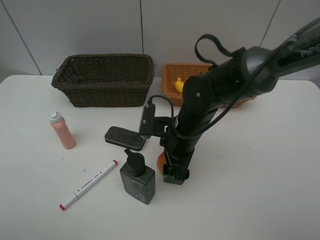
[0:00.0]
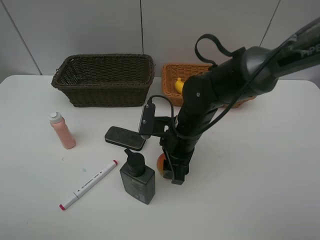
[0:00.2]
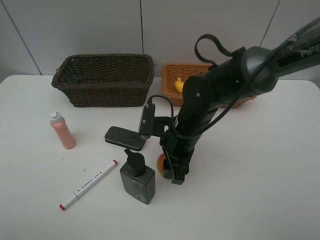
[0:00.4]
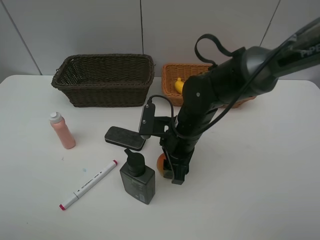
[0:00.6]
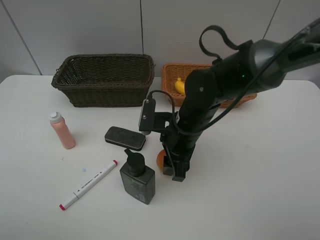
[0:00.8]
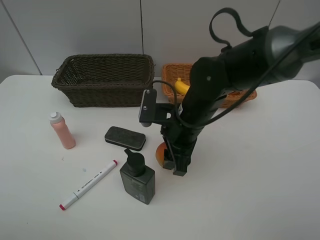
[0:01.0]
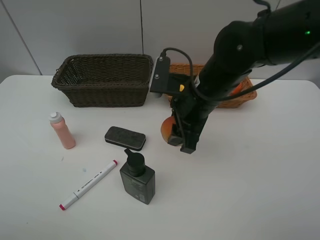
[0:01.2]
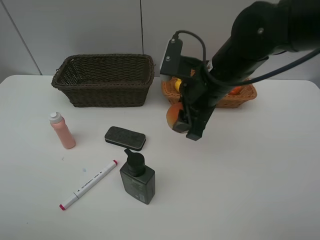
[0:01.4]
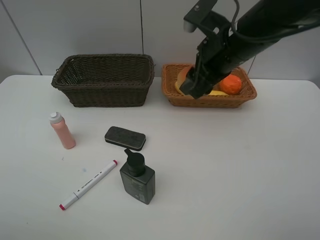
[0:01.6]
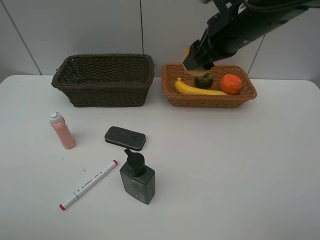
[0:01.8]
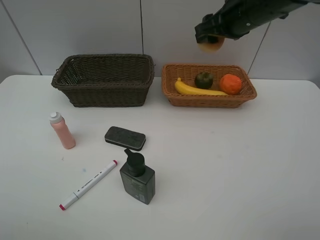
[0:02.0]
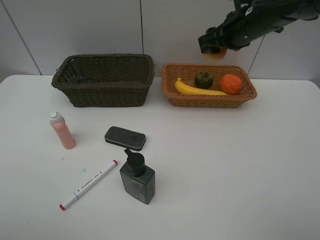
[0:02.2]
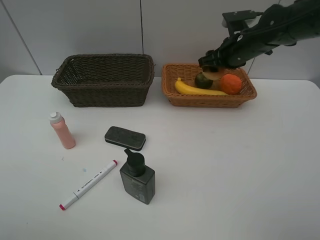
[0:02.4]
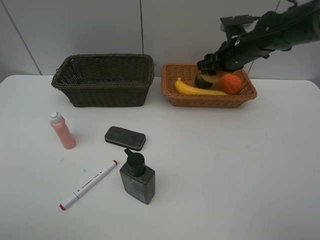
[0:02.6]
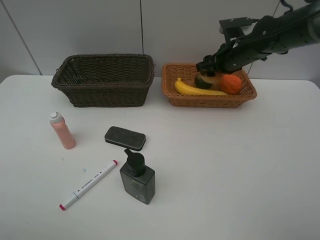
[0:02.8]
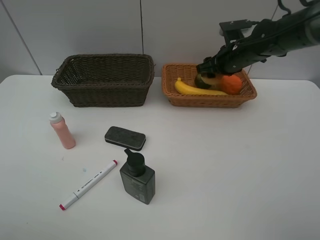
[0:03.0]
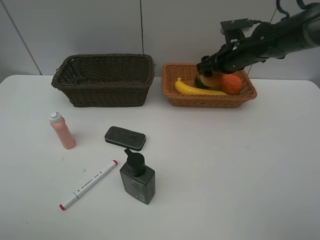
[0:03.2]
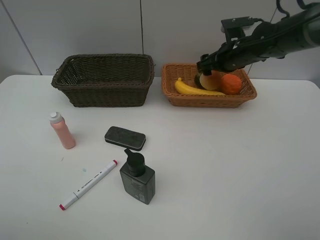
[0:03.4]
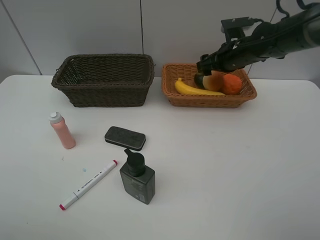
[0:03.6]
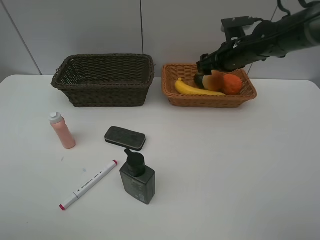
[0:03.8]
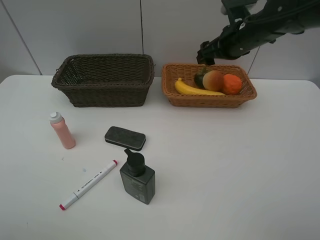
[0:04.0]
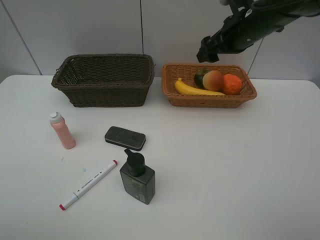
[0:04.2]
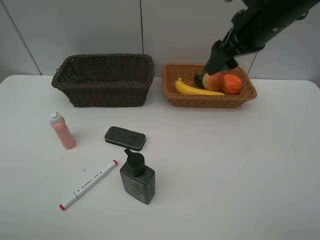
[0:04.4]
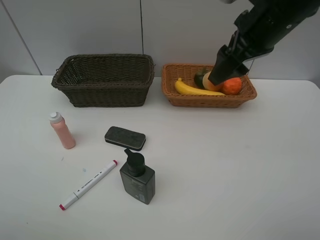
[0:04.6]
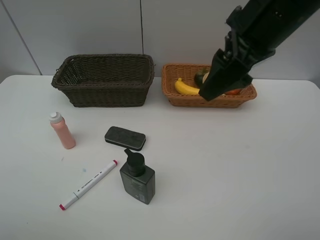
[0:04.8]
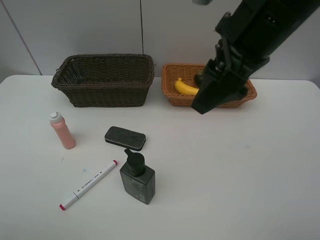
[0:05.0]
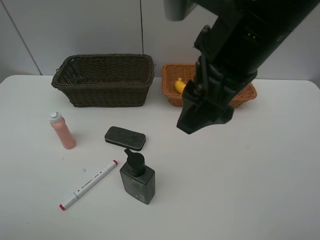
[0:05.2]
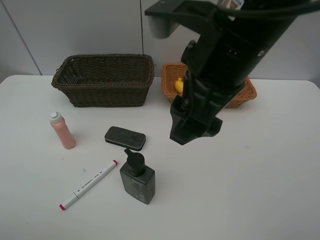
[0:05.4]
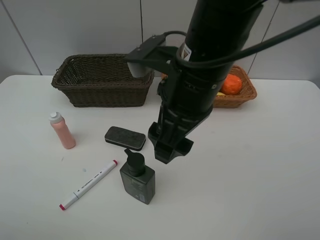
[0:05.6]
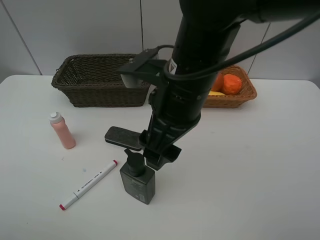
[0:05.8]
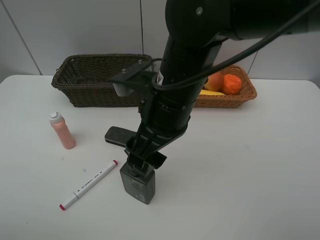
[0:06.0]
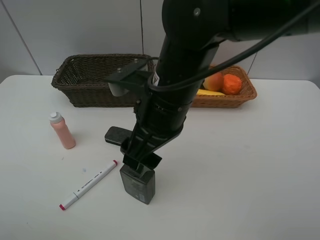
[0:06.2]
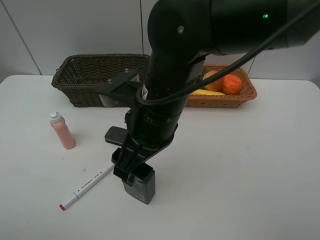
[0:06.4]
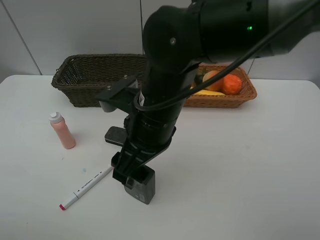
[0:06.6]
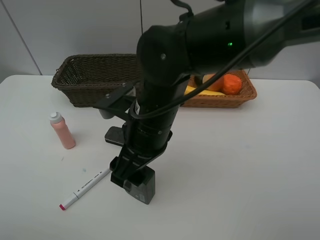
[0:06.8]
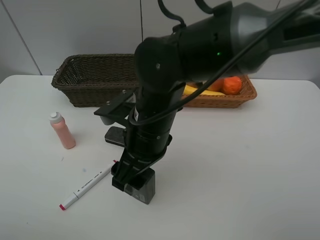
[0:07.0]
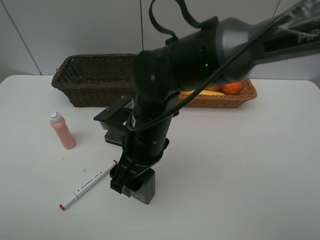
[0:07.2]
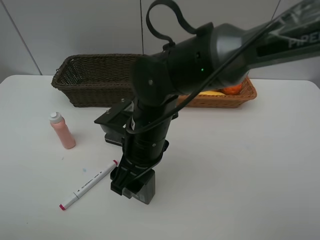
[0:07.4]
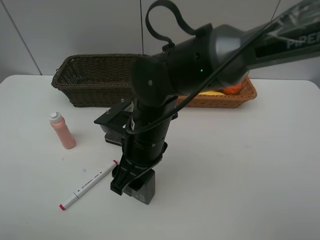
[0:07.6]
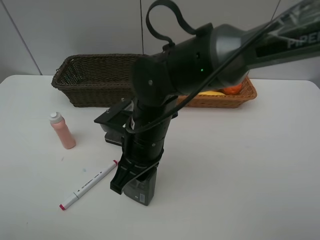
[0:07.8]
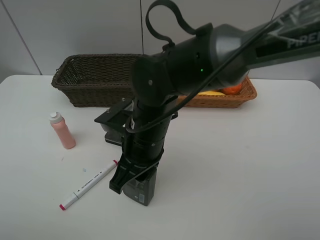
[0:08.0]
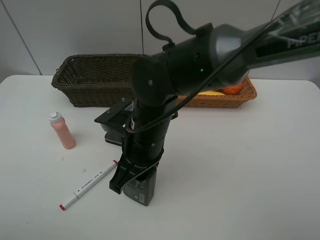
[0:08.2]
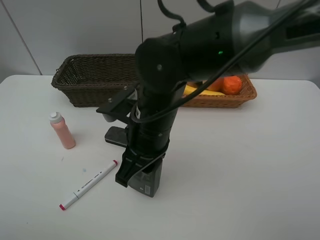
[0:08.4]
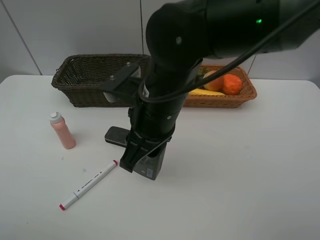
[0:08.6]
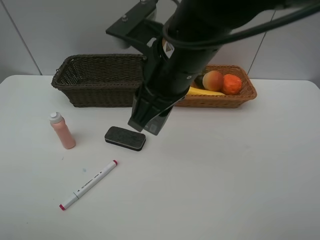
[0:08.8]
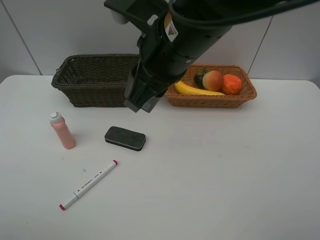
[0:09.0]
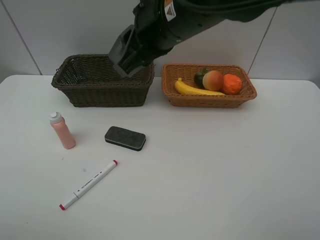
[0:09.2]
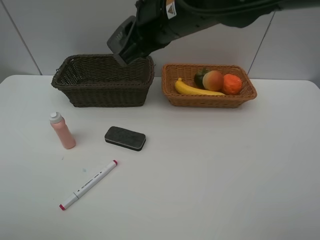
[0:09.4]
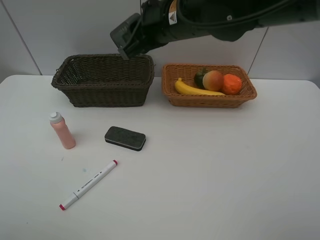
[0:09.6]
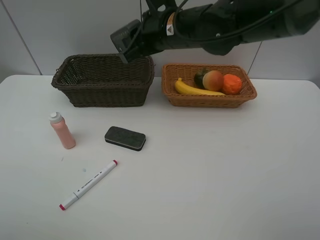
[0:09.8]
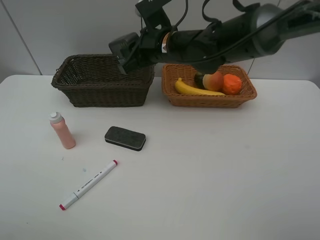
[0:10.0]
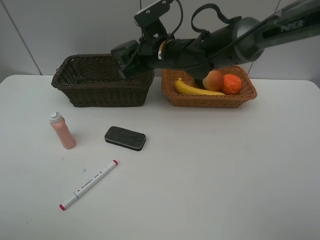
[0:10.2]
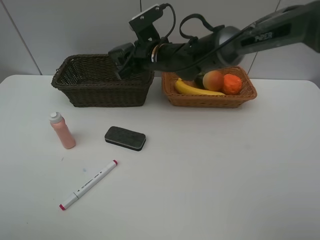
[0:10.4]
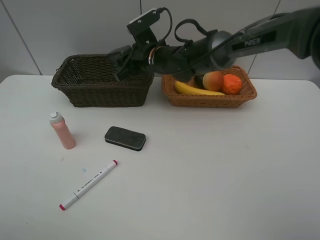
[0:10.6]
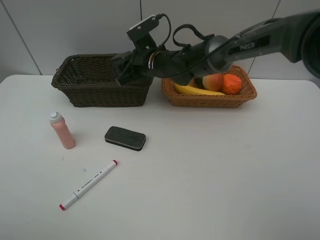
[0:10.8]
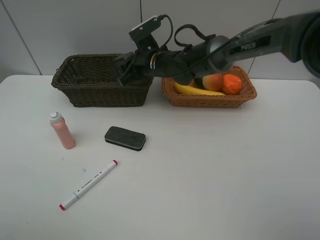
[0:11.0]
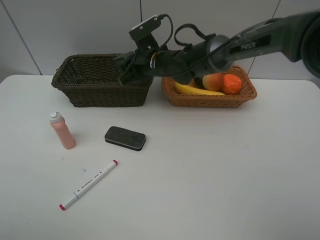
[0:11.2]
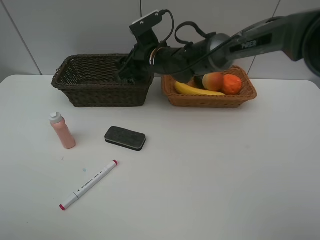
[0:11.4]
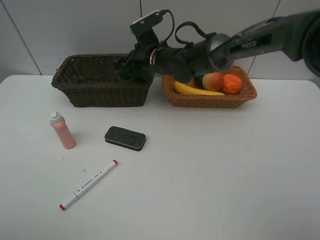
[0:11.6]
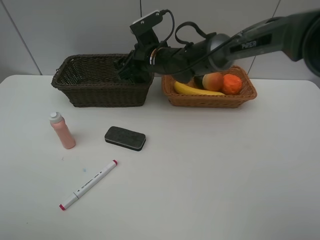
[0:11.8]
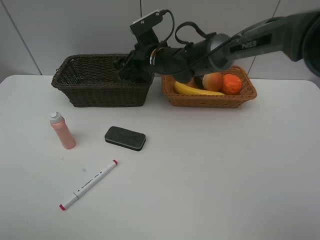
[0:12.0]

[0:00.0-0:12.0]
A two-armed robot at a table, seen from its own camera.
Task of the whole recording: Place multiple objects separately in different baskets.
Step, 0:01.0 to 0:04.0: Place the egg yolk pastry in the light basket with right gripper.
Step, 0:04.2 to 0:08.4: Pick up the hard facial cleanser with right gripper.
0:00.0 to 0:01.6: The right gripper moves upward and to the right, about 15 cm, and closes its fingers.
0:01.6 to 0:03.0: The right gripper moves forward, downward and to the right, approximately 15 cm.
0:03.0 to 0:04.4: The right gripper goes approximately 15 cm upward and backward, and opens up.
0:04.4 to 0:06.0: The right gripper shifts about 20 cm to the left, backward and downward.
0:06.0 to 0:07.6: The right gripper is displaced downward by approximately 10 cm, and closes up.
0:07.6 to 0:09.0: The right gripper heads upward, covering some 15 cm, and closes.
0:09.0 to 0:10.4: The right gripper moves forward and downward, some 20 cm.
0:10.4 to 0:12.0: The right gripper opens up.

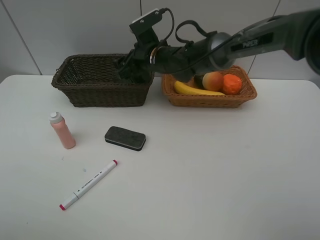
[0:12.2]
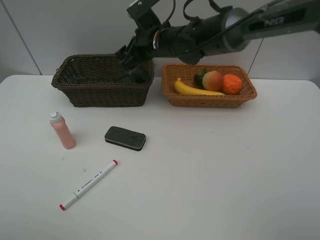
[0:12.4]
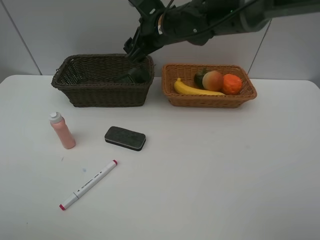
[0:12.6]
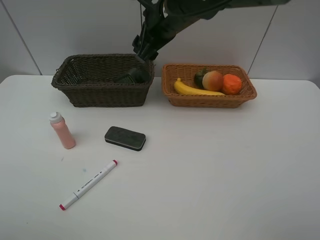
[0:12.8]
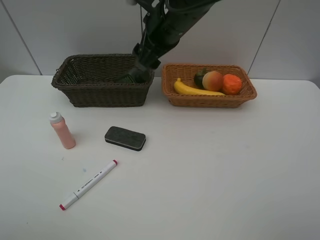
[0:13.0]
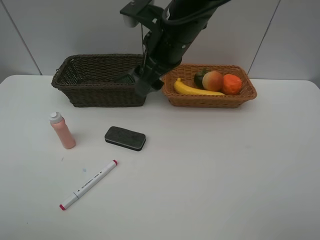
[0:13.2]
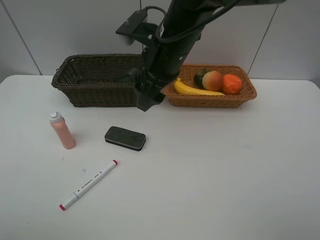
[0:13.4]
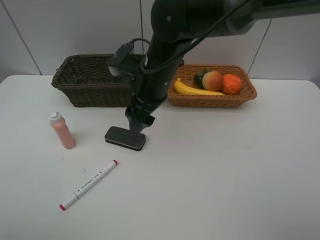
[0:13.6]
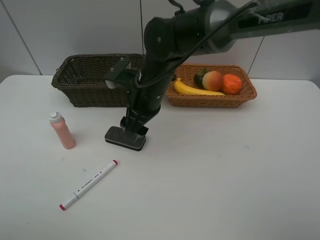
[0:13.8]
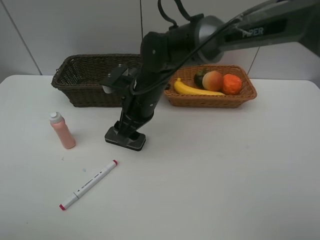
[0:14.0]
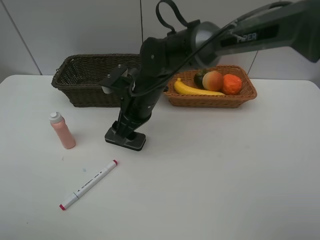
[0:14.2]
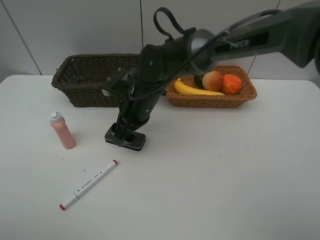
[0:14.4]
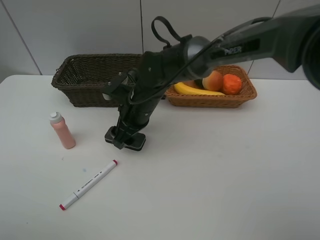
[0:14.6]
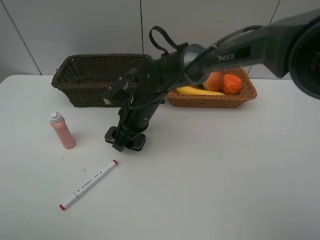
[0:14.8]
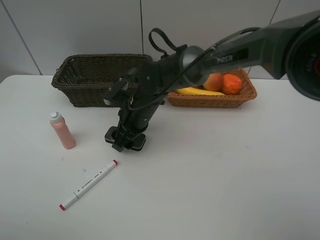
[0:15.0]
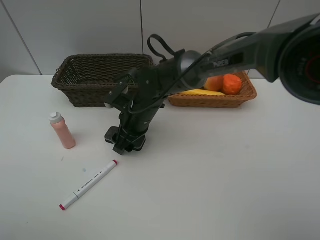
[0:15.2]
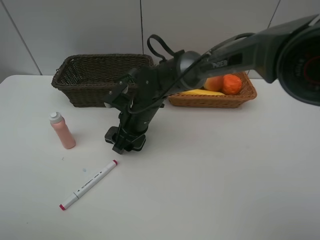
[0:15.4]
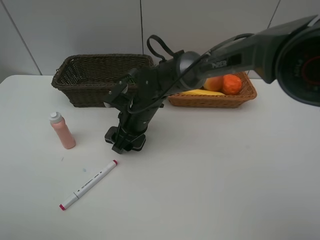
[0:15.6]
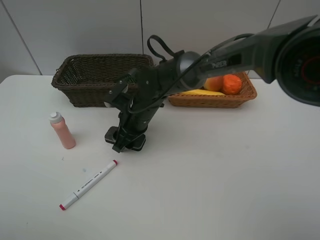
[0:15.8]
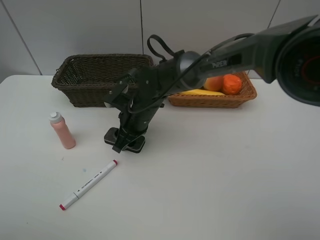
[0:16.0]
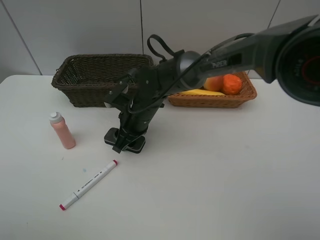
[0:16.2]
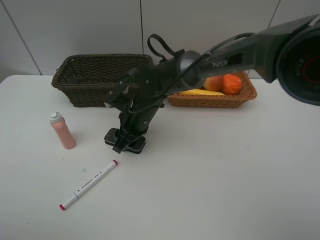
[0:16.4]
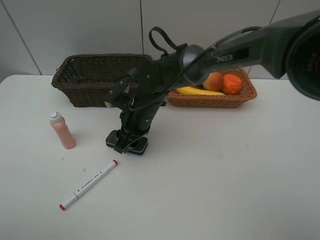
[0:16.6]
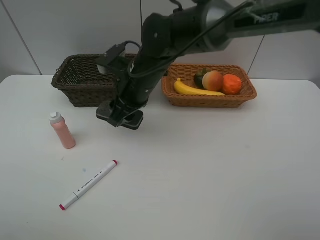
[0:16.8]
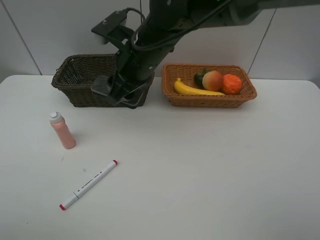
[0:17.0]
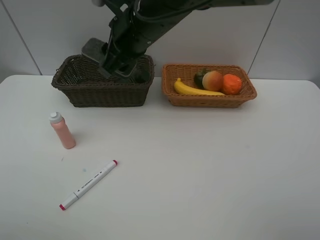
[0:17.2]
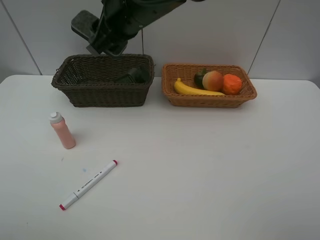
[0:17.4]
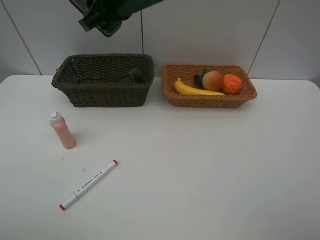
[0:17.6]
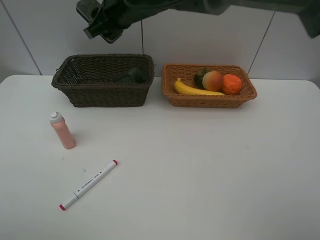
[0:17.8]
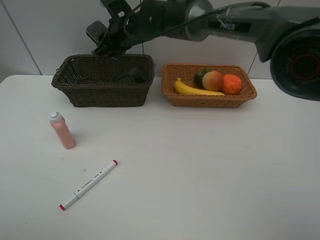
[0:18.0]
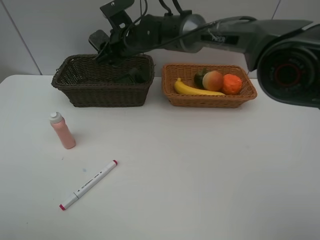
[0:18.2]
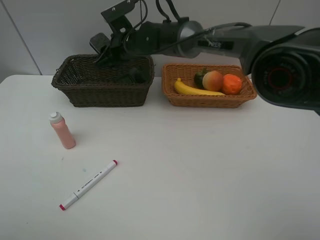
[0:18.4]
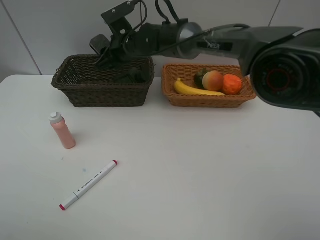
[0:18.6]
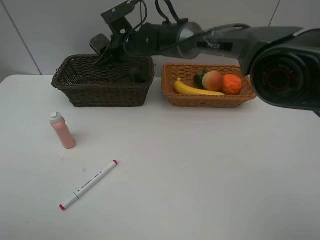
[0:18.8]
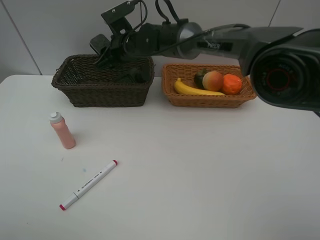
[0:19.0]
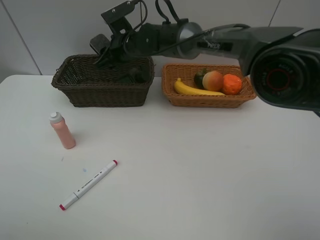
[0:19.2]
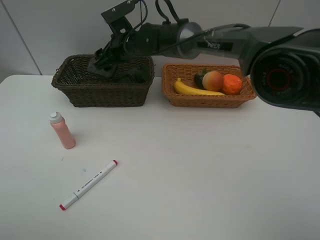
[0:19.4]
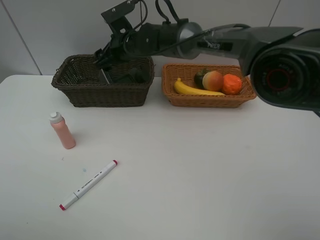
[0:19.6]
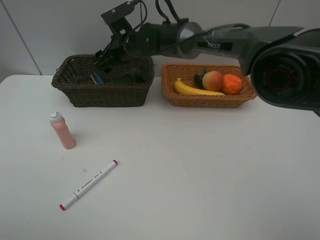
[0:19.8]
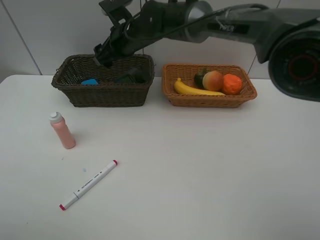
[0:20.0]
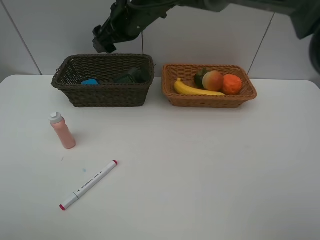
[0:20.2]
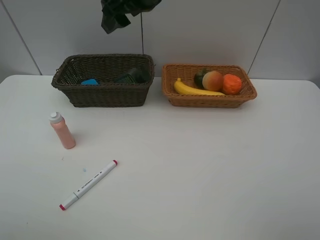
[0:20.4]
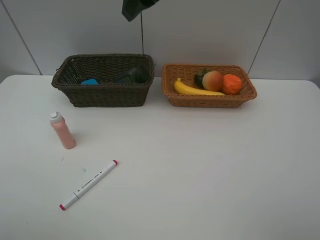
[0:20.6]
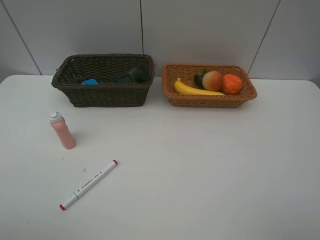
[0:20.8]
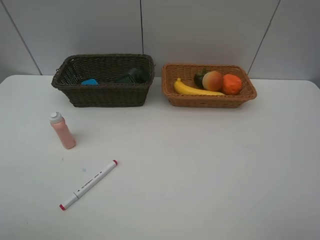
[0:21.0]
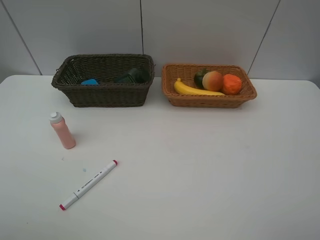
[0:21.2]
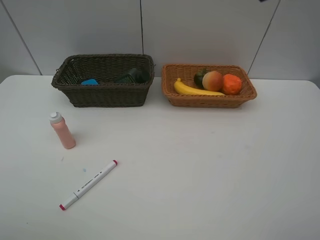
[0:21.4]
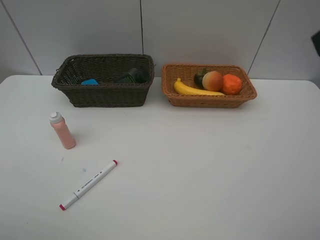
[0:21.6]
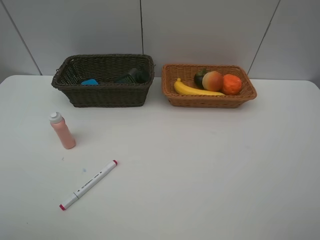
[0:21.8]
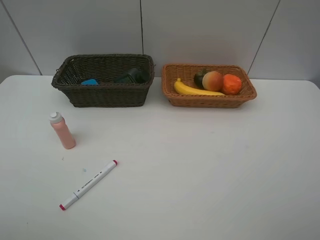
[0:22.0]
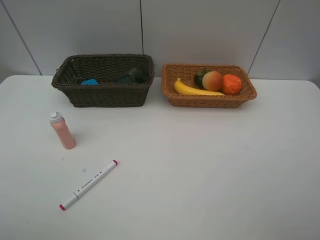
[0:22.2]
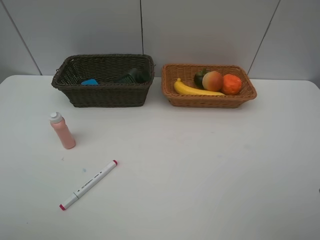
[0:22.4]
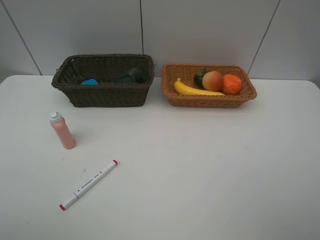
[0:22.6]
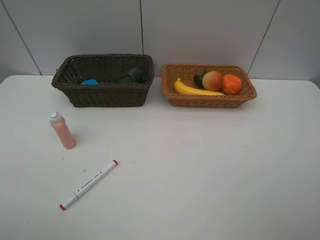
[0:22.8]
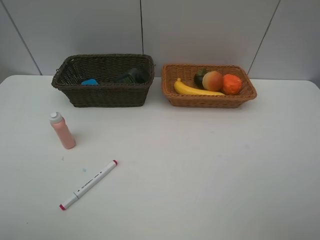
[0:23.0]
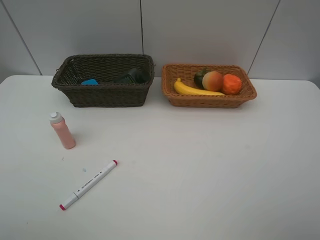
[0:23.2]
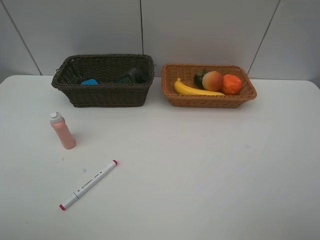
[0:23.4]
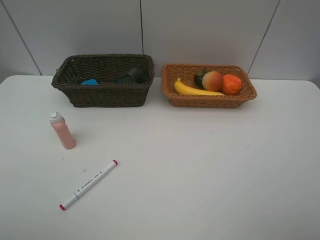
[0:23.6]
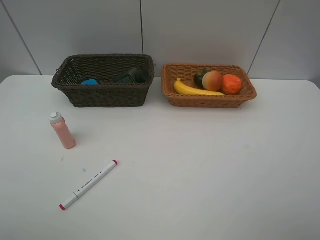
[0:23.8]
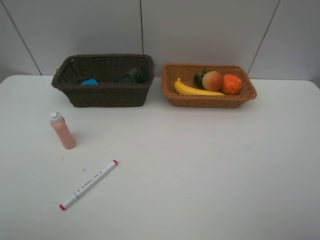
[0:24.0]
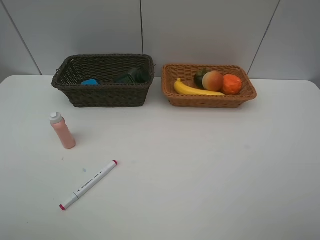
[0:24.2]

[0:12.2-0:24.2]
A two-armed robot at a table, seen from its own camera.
Task of the whole recording: Place multiple objects separately in different baskets.
Step, 0:12.6 to 0:16.6: Pick up blackboard eraser with right gripper.
Step, 0:16.8 to 0:19.8: Place the blackboard eraser in the dark basket with right gripper.
0:12.2 to 0:13.8: The right gripper goes roughly 10 cm backward, and moves roughly 10 cm upward and comes back.
0:13.8 to 0:15.2: The right gripper moves downward, some 10 cm.
0:15.2 to 0:16.6: The right gripper closes.
0:16.6 to 0:18.2: The right gripper heads forward and upward, covering approximately 15 cm.
0:18.2 to 0:19.8: The right gripper opens its fingers.
0:19.8 to 0:21.2: The right gripper heads upward, backward and to the right, covering some 40 cm.
